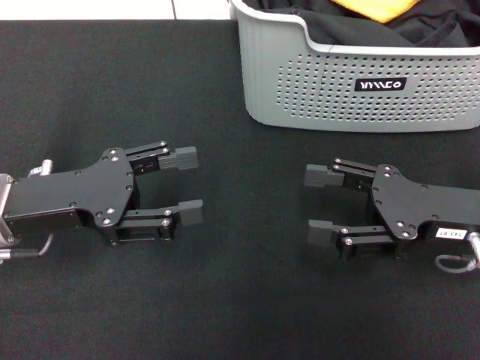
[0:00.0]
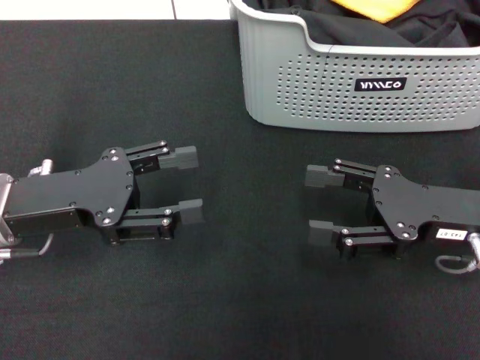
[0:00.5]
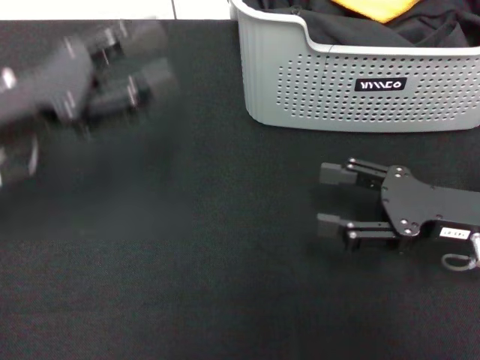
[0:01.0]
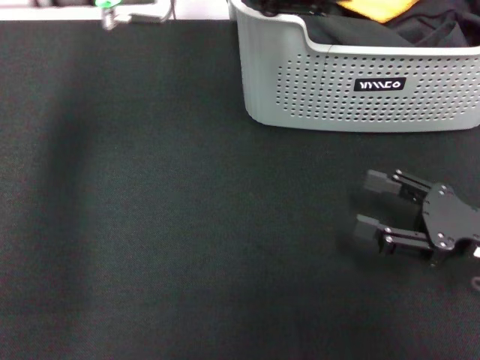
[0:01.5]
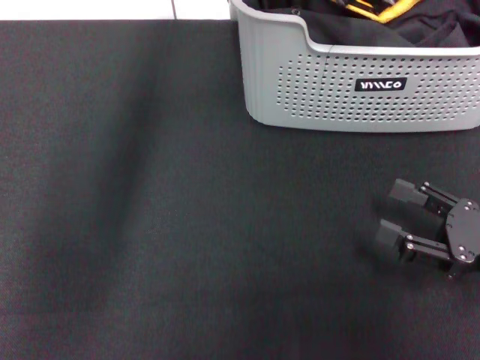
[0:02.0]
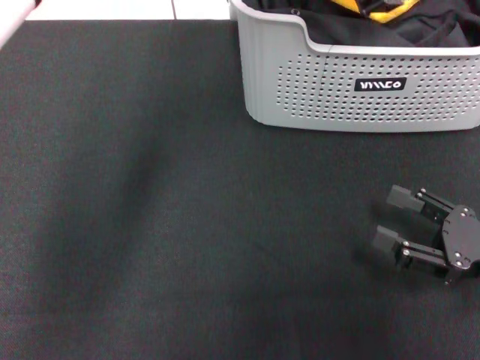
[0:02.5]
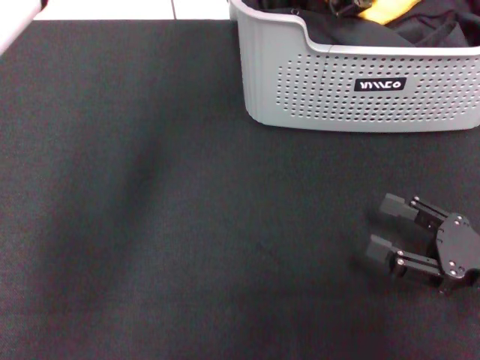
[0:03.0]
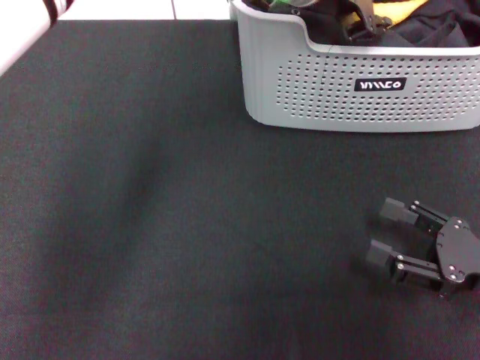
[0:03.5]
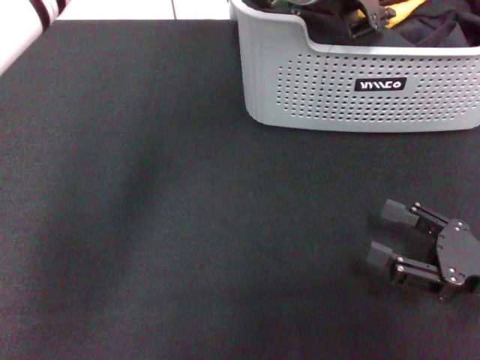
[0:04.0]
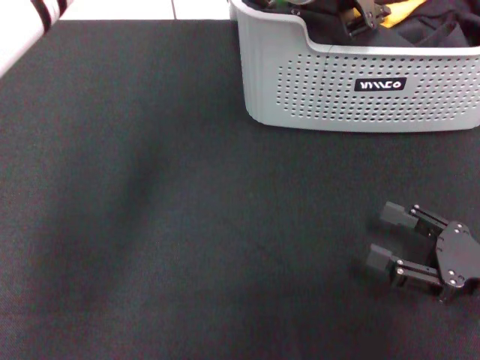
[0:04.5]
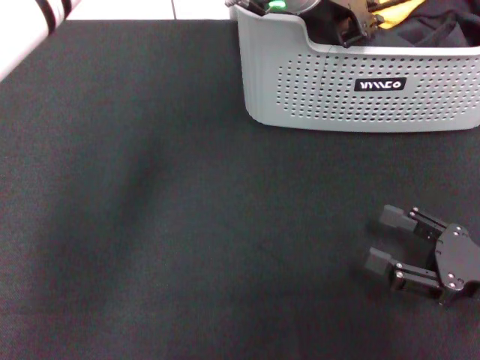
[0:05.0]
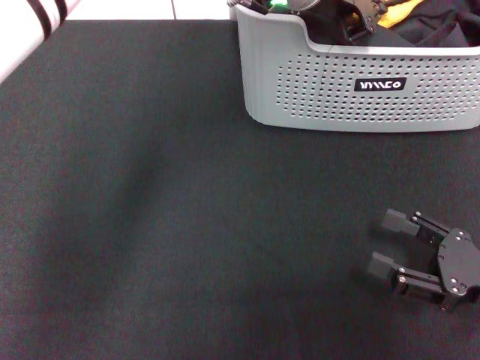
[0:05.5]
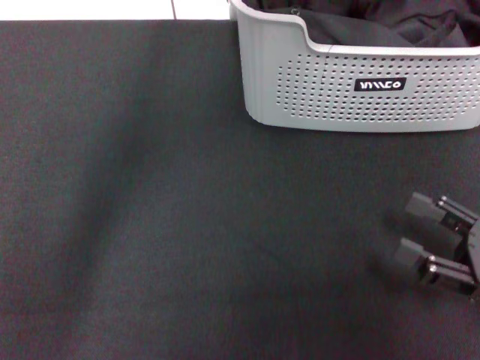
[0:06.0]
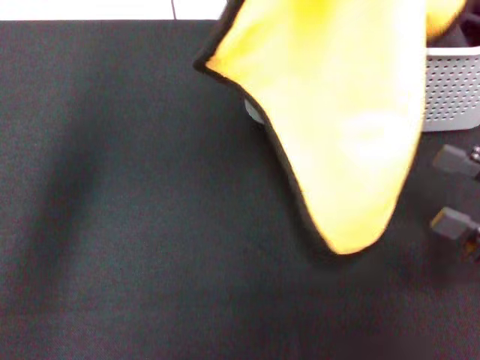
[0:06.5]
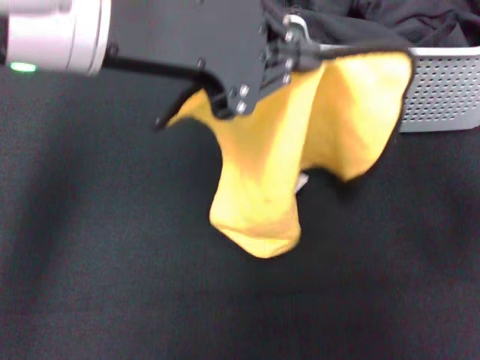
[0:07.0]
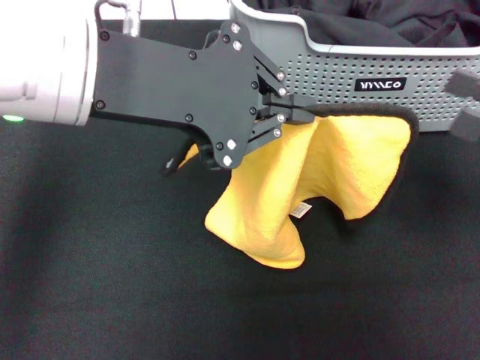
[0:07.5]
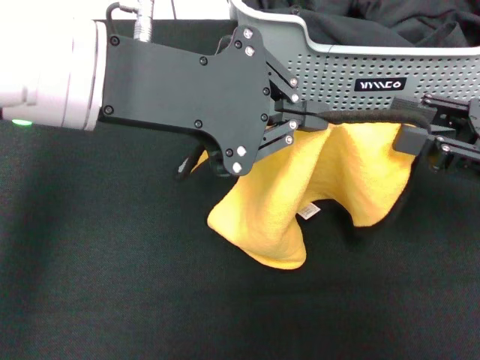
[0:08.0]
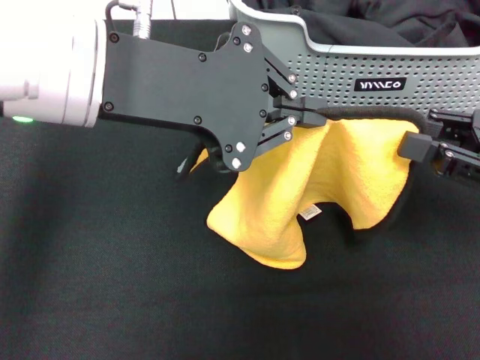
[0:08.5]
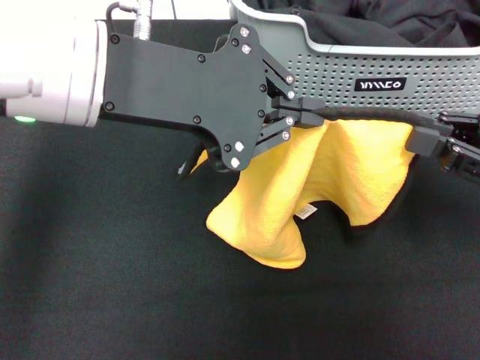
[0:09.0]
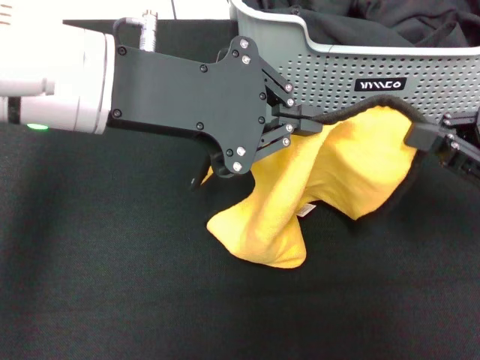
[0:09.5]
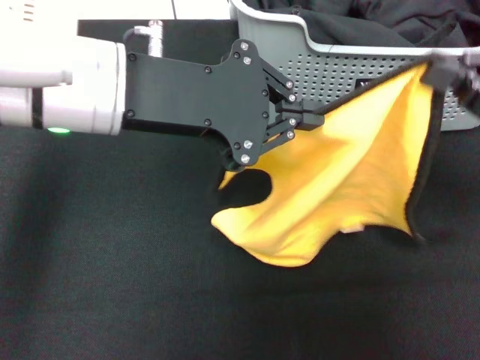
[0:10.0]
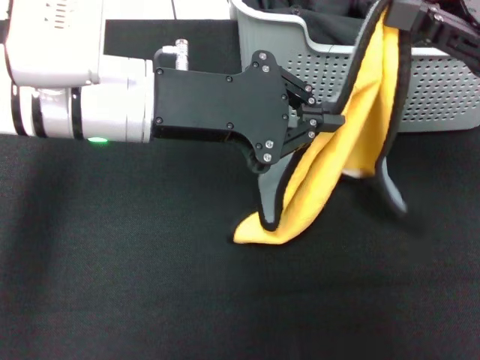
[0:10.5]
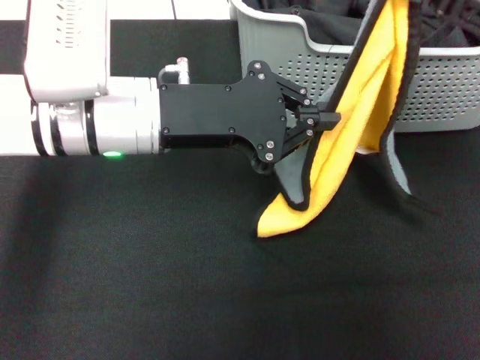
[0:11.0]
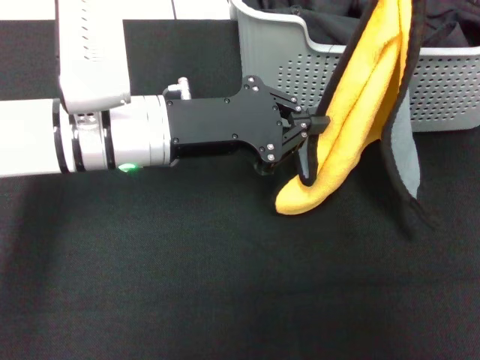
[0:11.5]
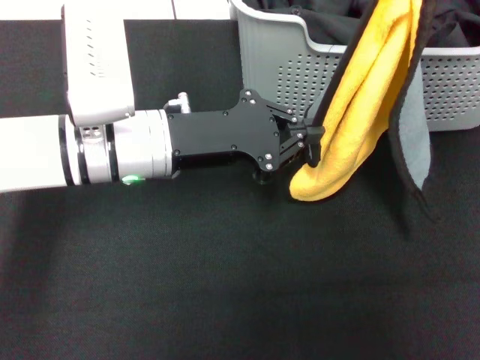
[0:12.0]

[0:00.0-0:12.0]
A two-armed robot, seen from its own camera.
Task of the whole recording: pick up the towel from the storage box and lay it flat on the black tablecloth.
Step, 0:00.0 to 0:03.0: Pick up a towel with the left gripper.
Step, 0:03.5 to 0:09.0: Spread the towel flat with the left gripper.
0:00.0 to 0:02.0: The right gripper goes roughly 10 cm to the right and backward; the left gripper heads to the right, forward and upward, covering approximately 30 cm.
0:02.0 to 0:04.0: The left gripper closes.
0:04.0 to 0:06.0: The left gripper heads upward, covering about 10 cm, and closes up.
0:06.0 to 0:08.0: The right gripper moves upward and forward, some 10 cm, and closes its fingers. The left gripper is displaced backward and to the left by roughly 15 cm.
0:08.0 to 0:10.0: The right gripper closes.
0:10.0 to 0:12.0: The right gripper moves upward, approximately 5 cm. Meanwhile the left gripper heads downward, covering about 10 cm.

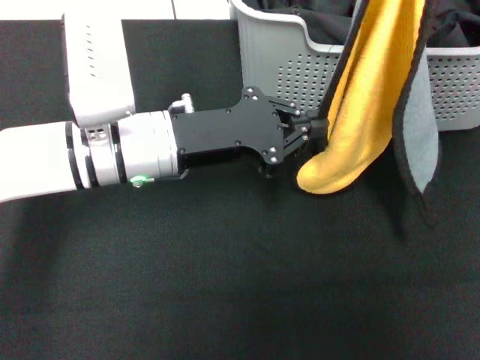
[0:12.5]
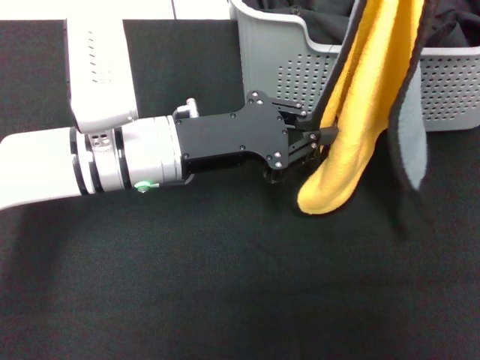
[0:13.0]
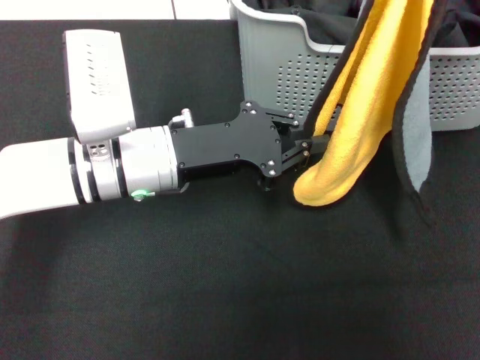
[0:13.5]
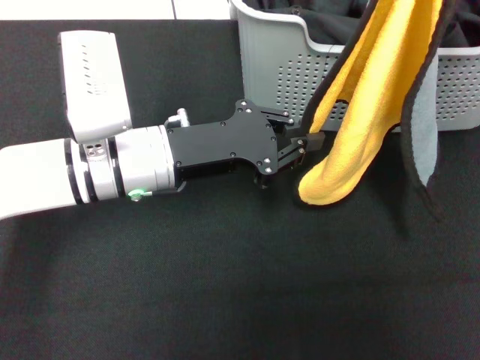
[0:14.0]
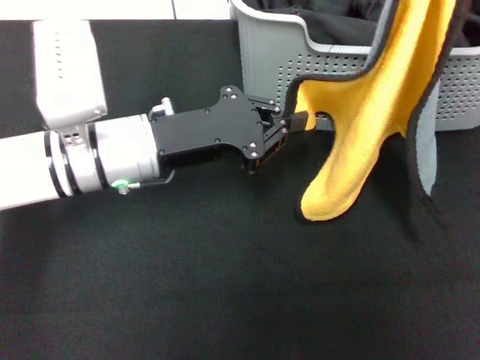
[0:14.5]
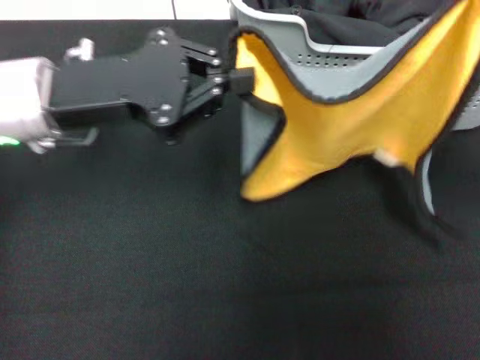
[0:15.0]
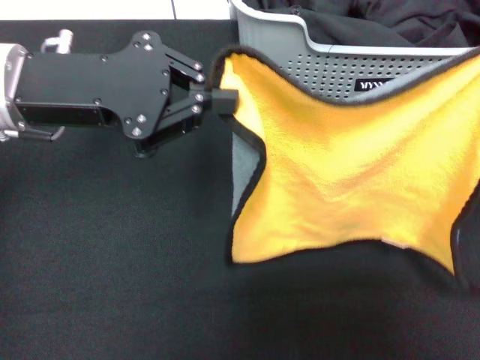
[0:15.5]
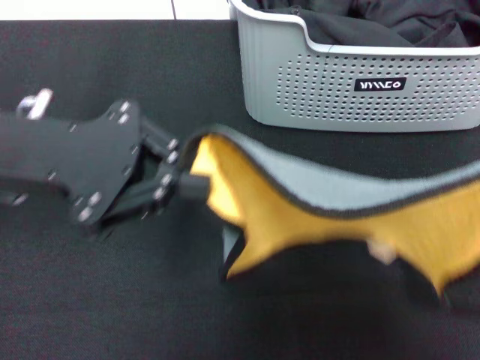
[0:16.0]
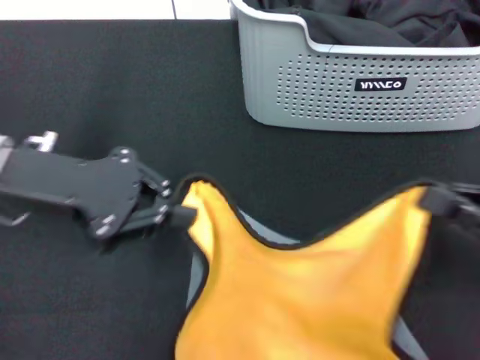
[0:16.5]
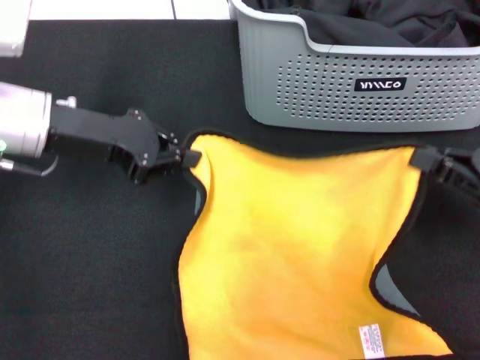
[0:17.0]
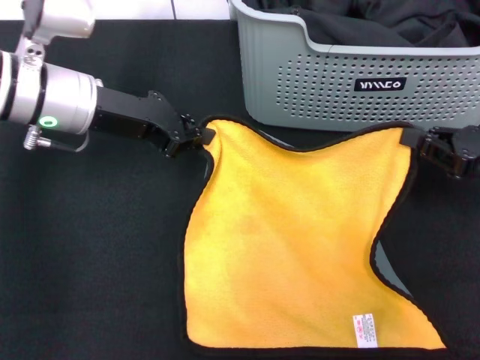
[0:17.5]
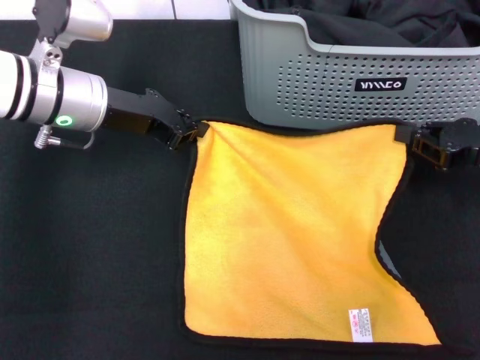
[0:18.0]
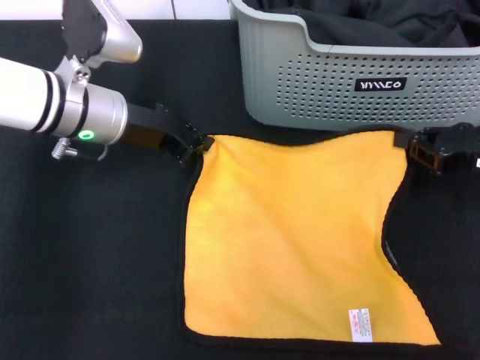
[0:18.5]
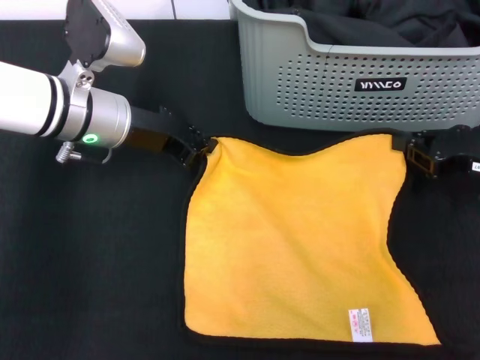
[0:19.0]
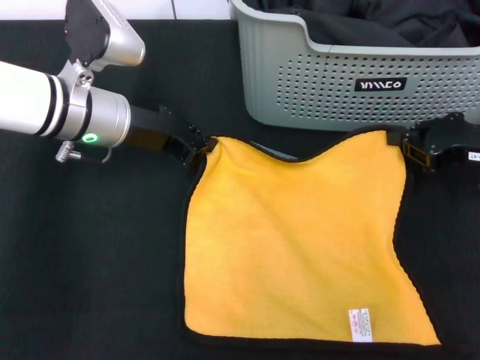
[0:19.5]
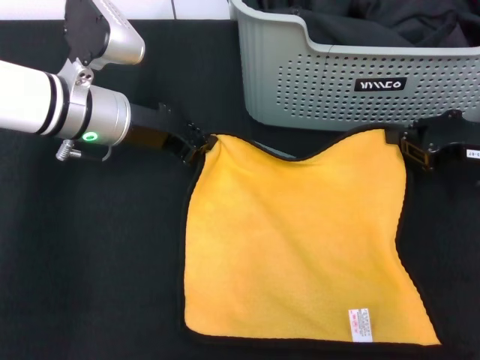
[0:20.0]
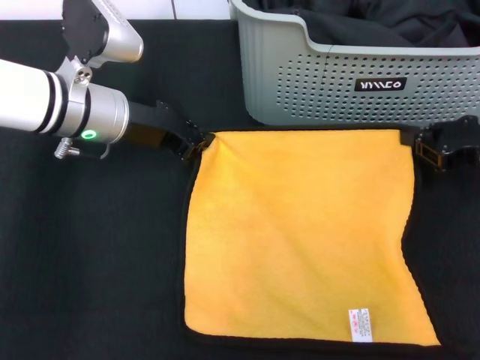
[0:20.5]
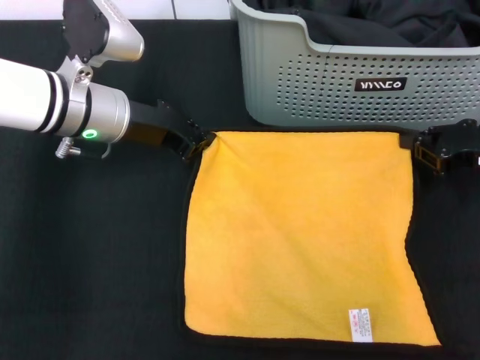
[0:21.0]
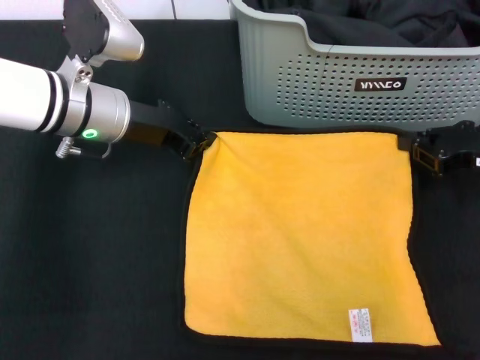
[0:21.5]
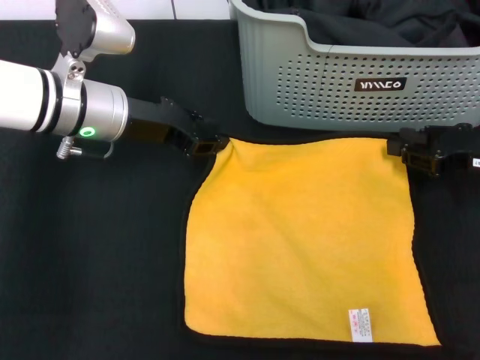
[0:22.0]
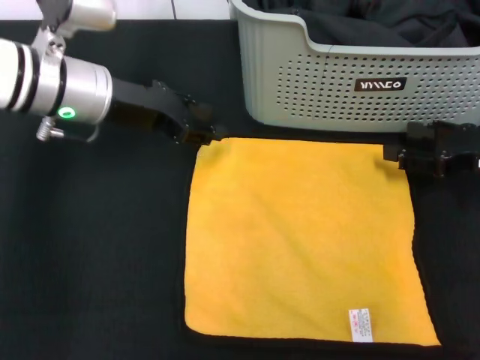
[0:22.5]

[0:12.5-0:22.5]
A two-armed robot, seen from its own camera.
Task of the whole recording: pick up the towel from the storage box and lay it flat on the black tablecloth.
Step, 0:12.5 to 0:22.5: Spread the towel flat with the right gripper.
0:14.5 to 0:16.5: The left gripper moves to the left and upward, some 10 cm; the right gripper shifts roughly 15 cm downward and backward.
0:16.5 to 0:18.5: The left gripper shifts some 15 cm forward, downward and to the right; the right gripper is displaced forward by approximately 10 cm.
0:18.5 to 0:20.5: There are only small adjustments of the grippers.
0:20.5 to 0:22.5: The right gripper opens; the left gripper opens up.

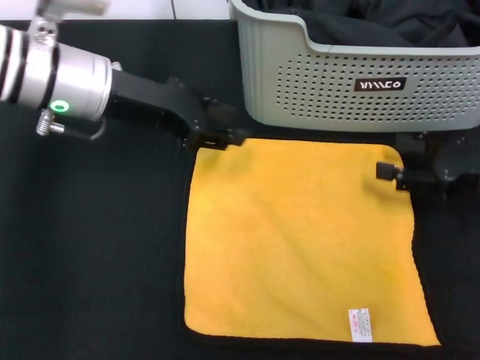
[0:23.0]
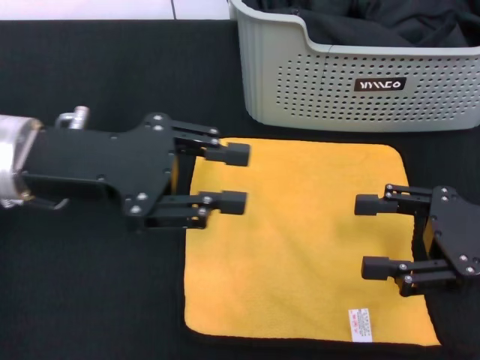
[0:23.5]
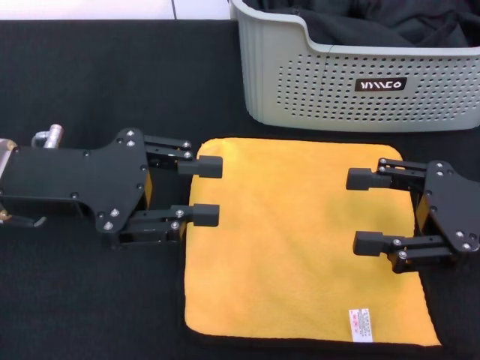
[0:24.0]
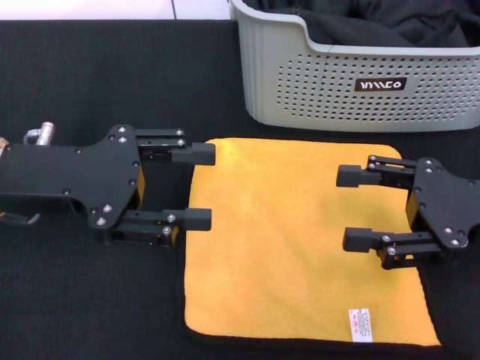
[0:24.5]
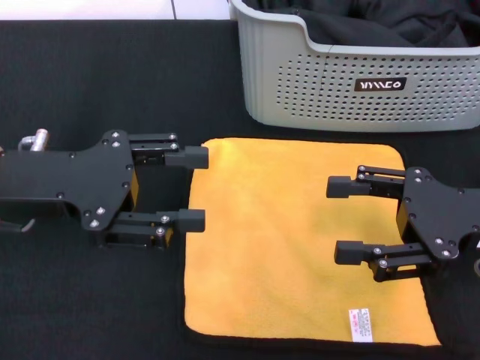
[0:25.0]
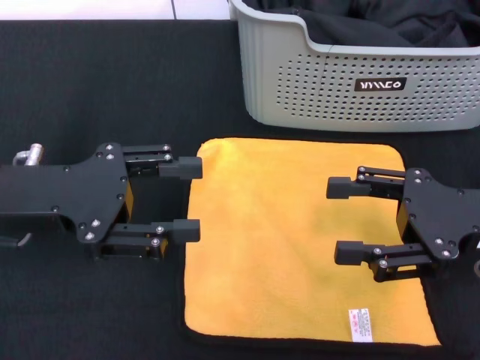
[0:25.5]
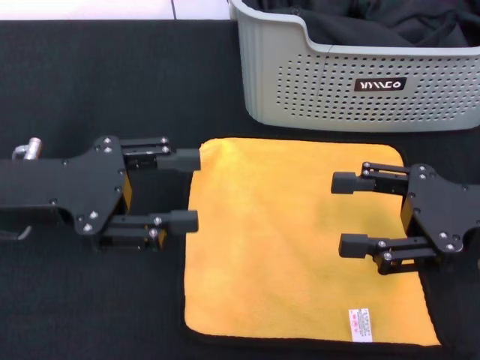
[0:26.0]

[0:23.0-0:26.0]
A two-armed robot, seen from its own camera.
Task of the whole recording: pick up the towel from the storage box and lay it flat on the black tablecloth.
0:23.0 to 0:24.5: The right gripper heads backward, covering approximately 5 cm. The left gripper is displaced backward and to the left by approximately 10 cm.
0:24.5 to 0:26.0: There are only small adjustments of the grippers.
